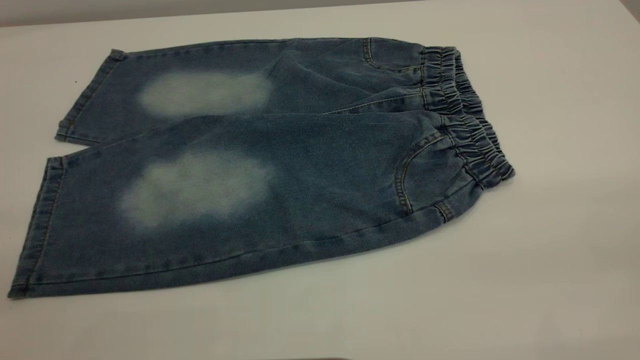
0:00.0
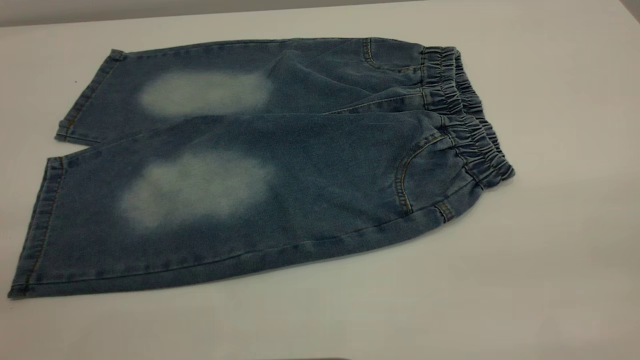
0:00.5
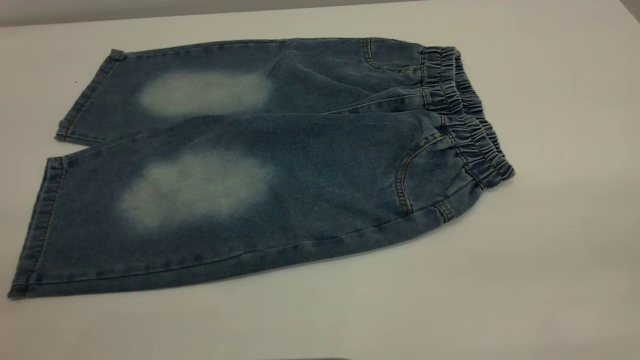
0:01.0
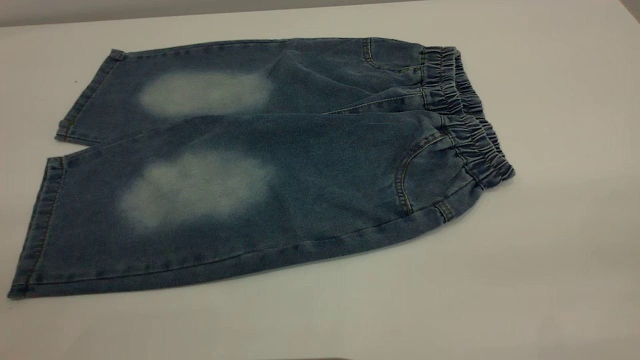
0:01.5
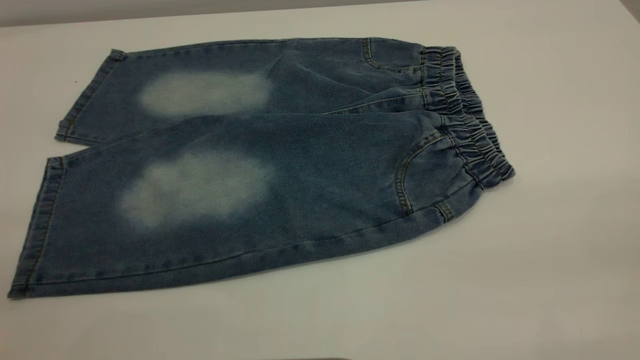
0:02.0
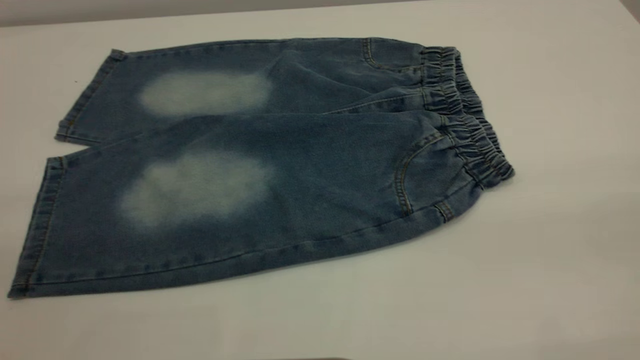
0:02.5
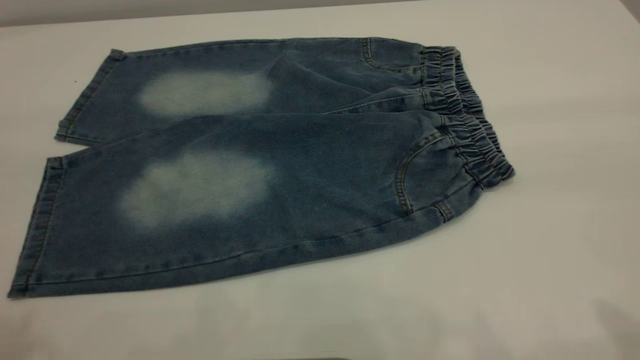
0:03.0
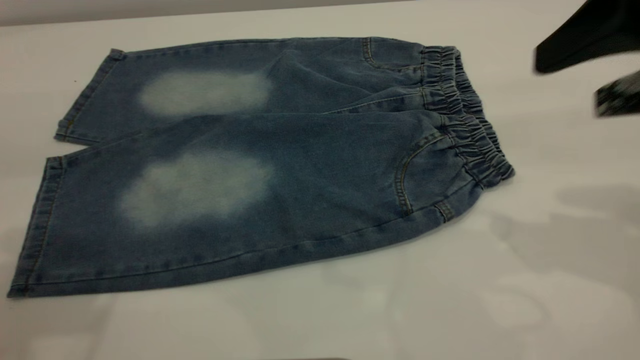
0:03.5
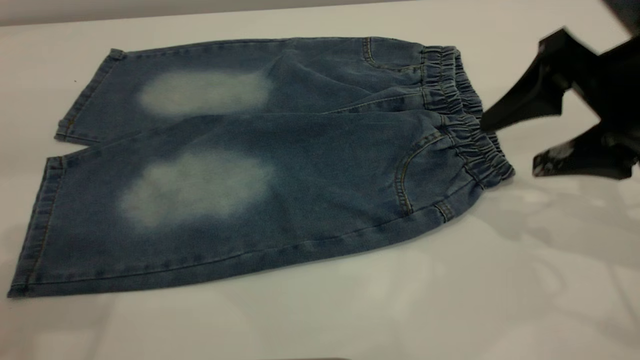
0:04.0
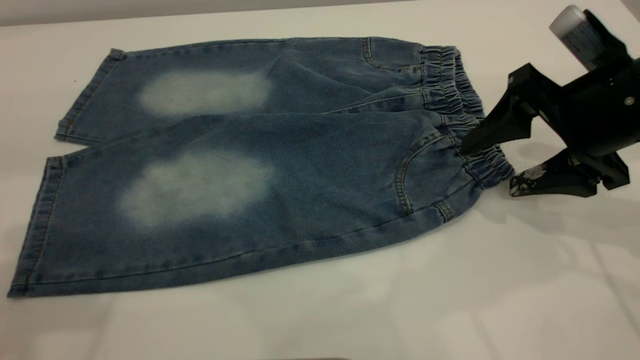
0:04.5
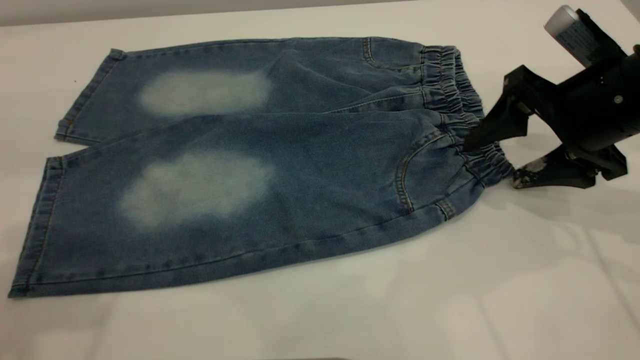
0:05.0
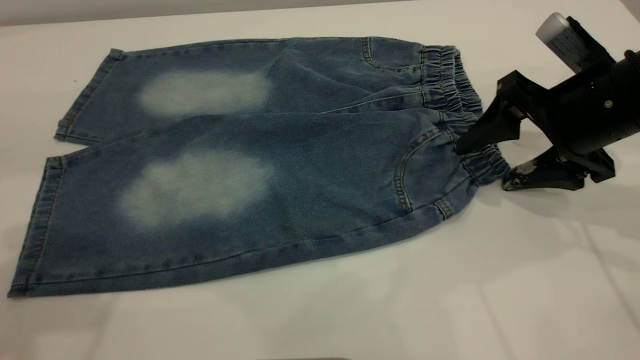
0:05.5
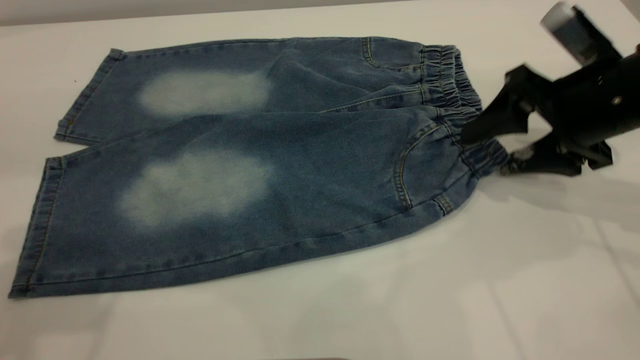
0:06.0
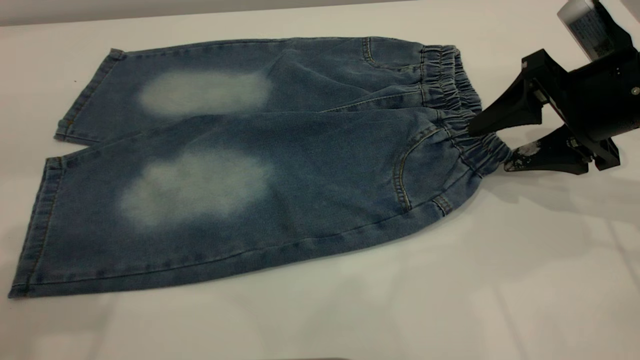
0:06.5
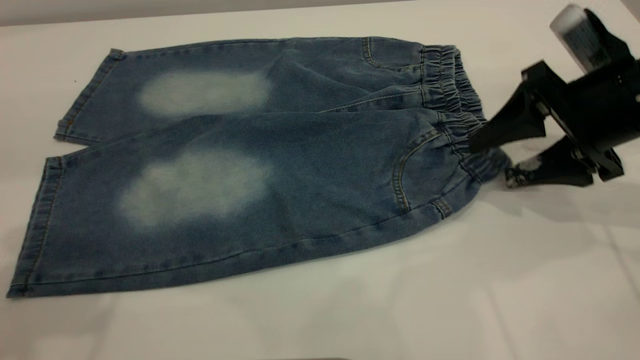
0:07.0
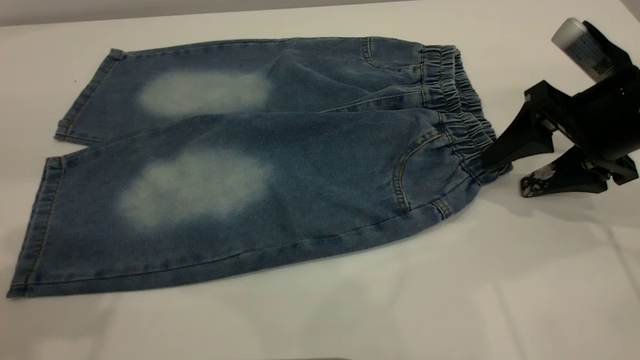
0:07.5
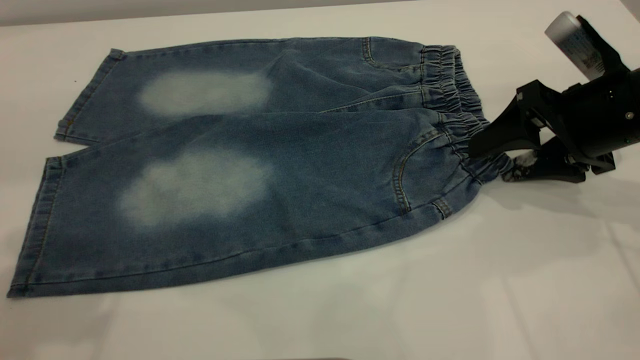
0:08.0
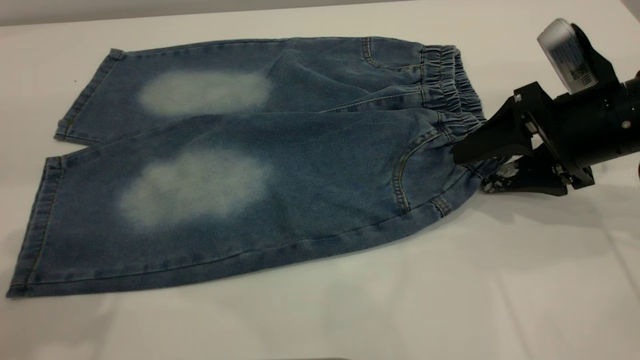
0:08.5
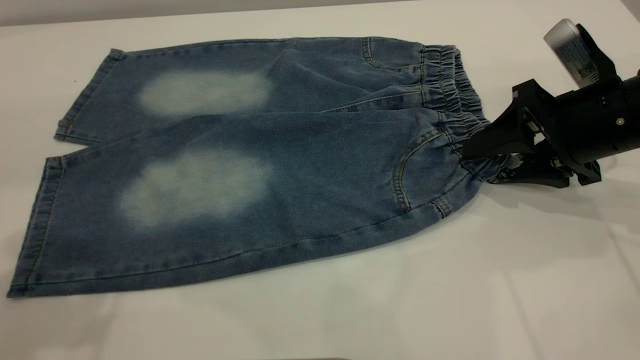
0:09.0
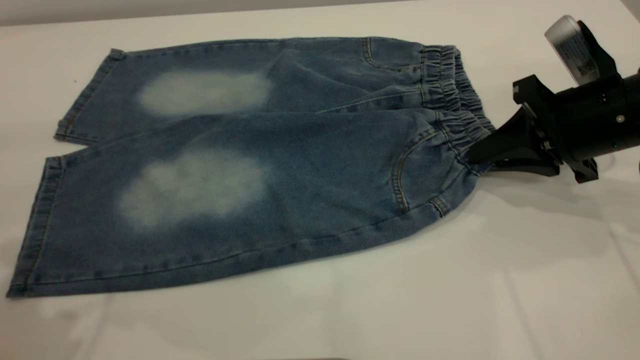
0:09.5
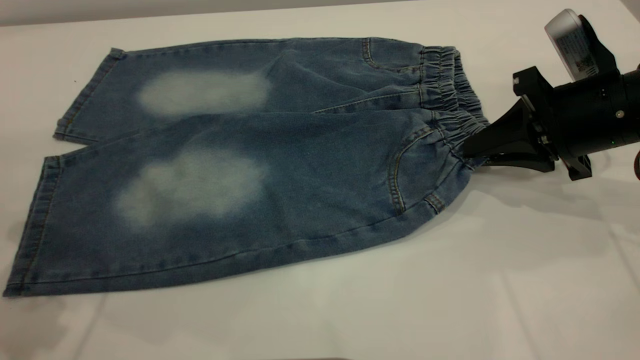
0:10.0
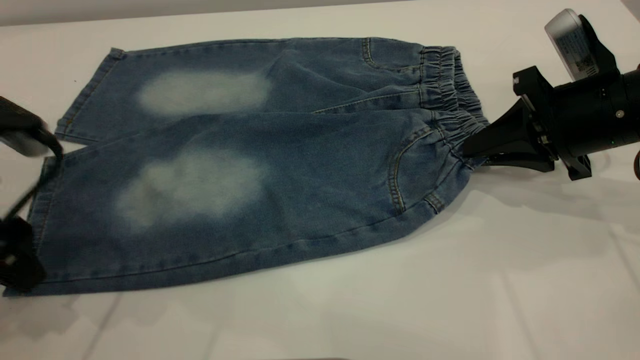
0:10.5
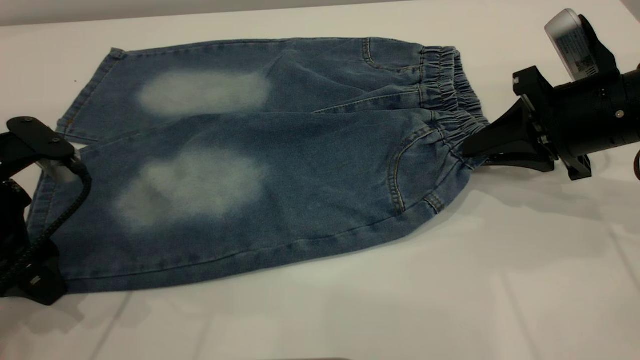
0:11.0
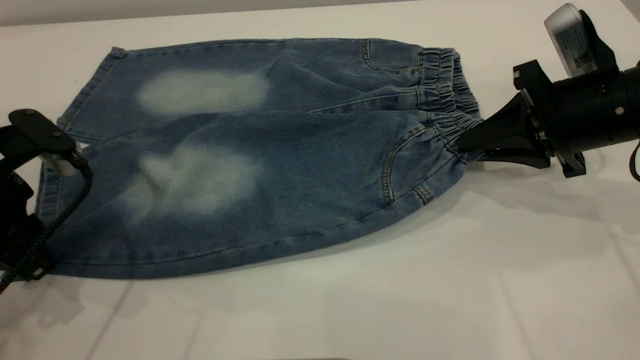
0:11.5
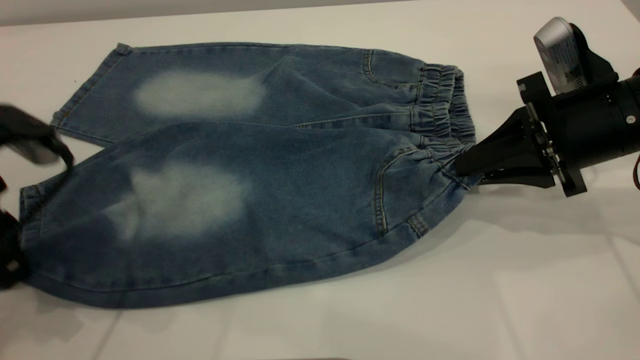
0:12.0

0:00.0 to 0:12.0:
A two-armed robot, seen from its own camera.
0:00.0 to 0:02.0: Both grippers stay about where they are.
0:02.0 to 0:04.0: The right gripper shifts some 30 cm forward and downward.
0:04.0 to 0:06.0: The right gripper goes approximately 5 cm forward.
0:06.0 to 0:08.0: The grippers move only a little.
0:08.0 to 0:10.0: The right gripper closes its fingers. The left gripper goes roughly 10 cm downward.
0:10.0 to 0:12.0: The left gripper moves downward, roughly 5 cm, and closes its fingers.

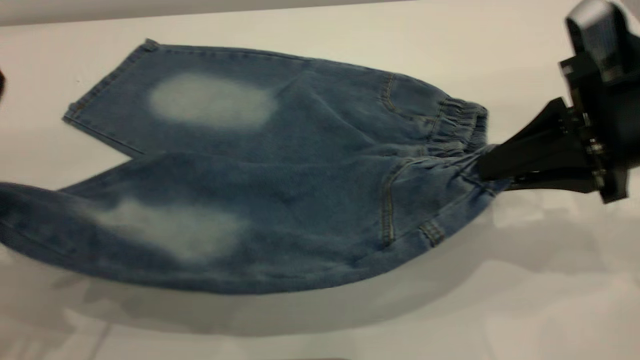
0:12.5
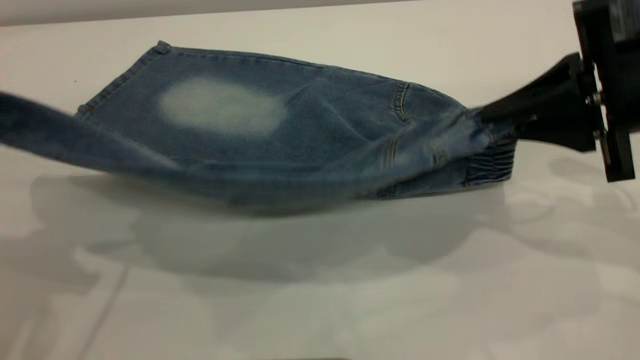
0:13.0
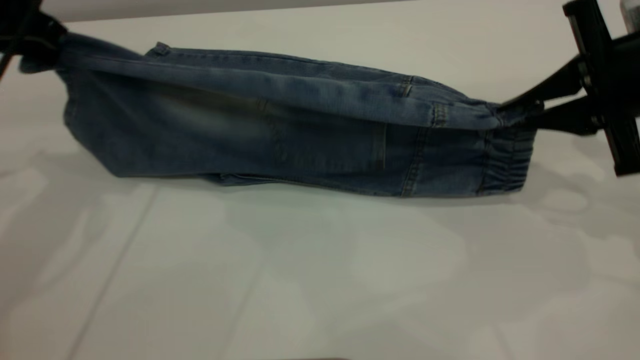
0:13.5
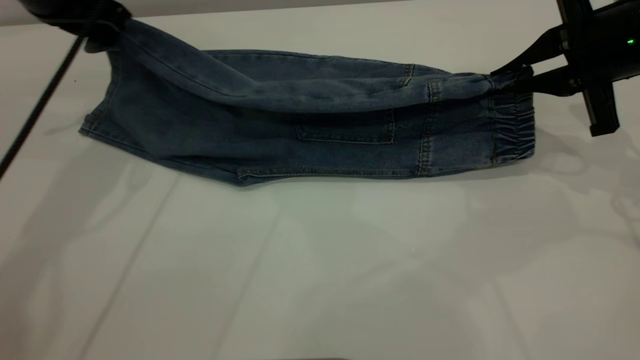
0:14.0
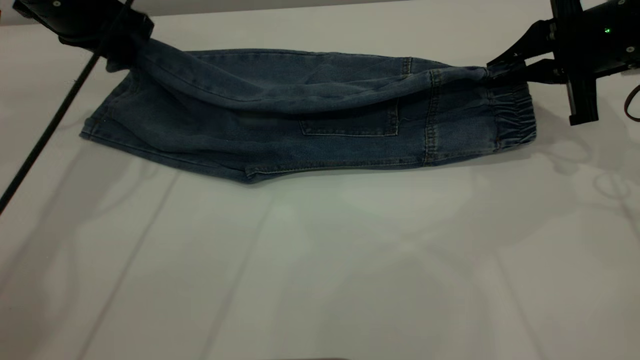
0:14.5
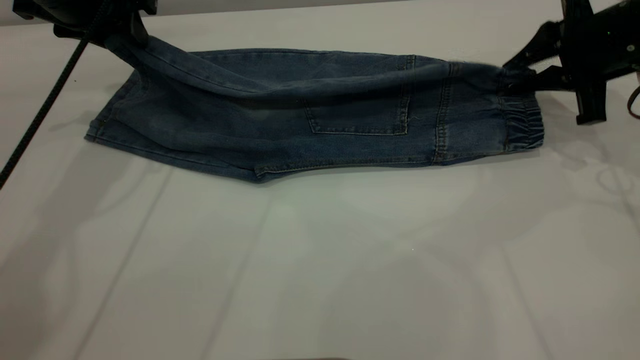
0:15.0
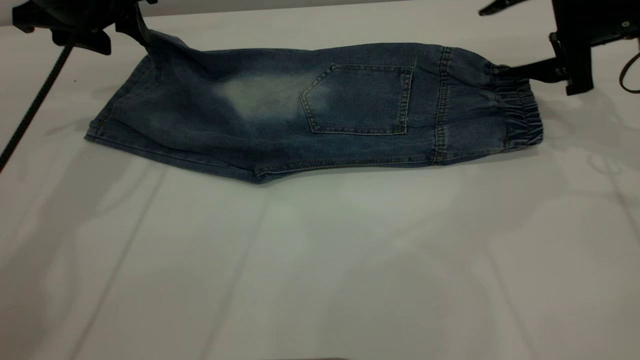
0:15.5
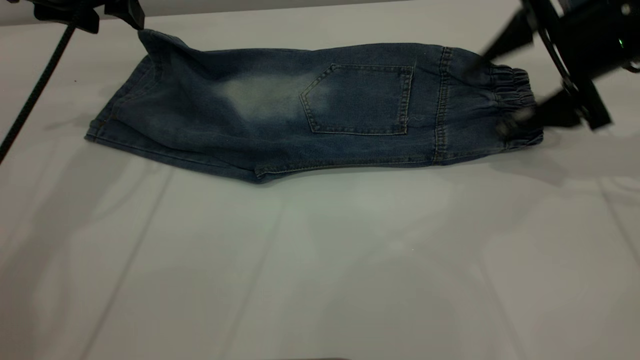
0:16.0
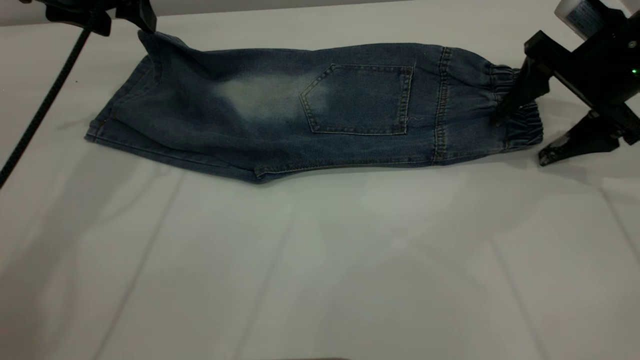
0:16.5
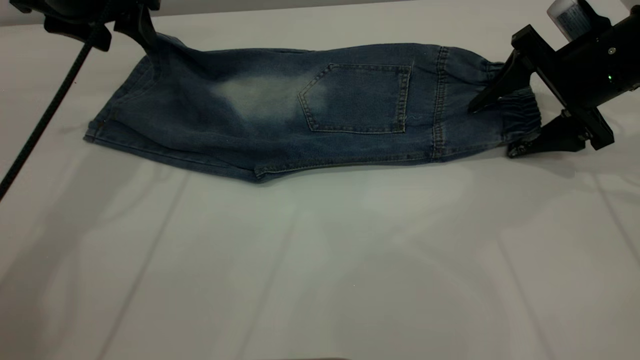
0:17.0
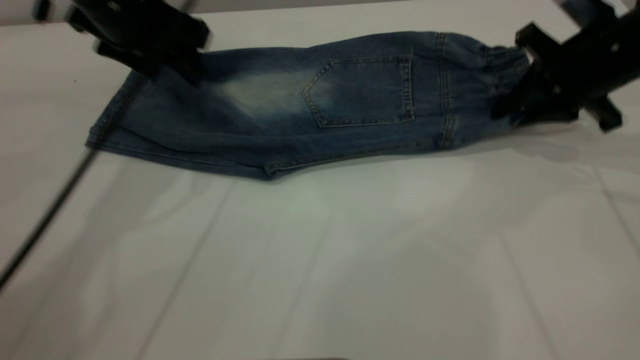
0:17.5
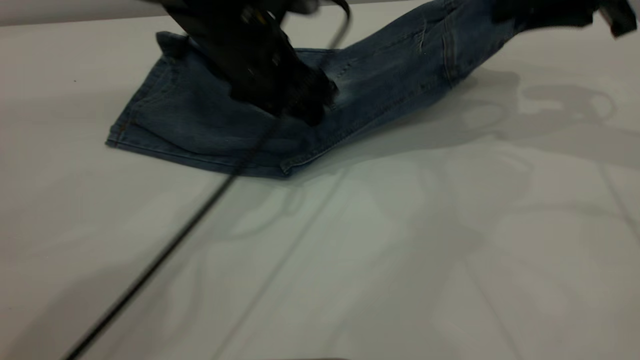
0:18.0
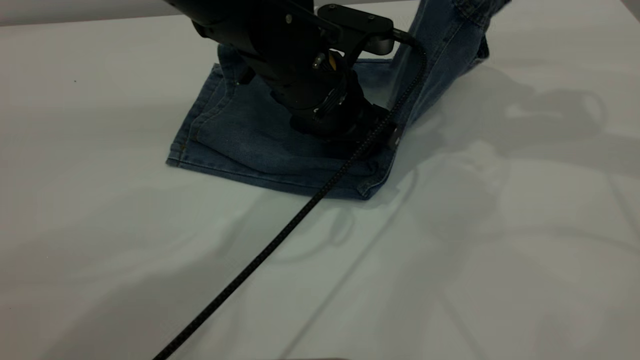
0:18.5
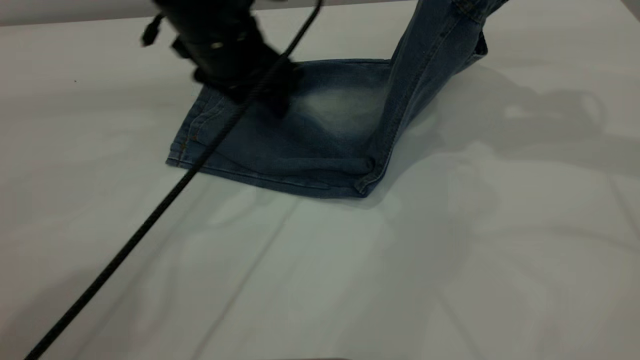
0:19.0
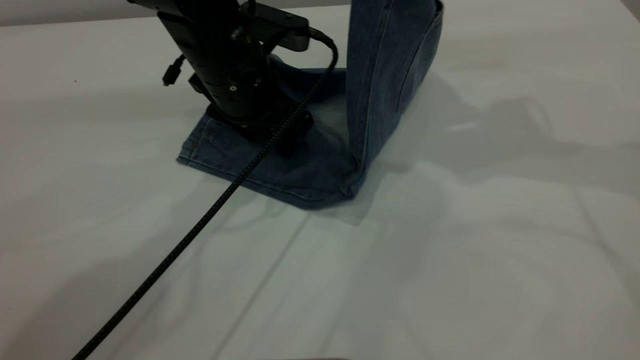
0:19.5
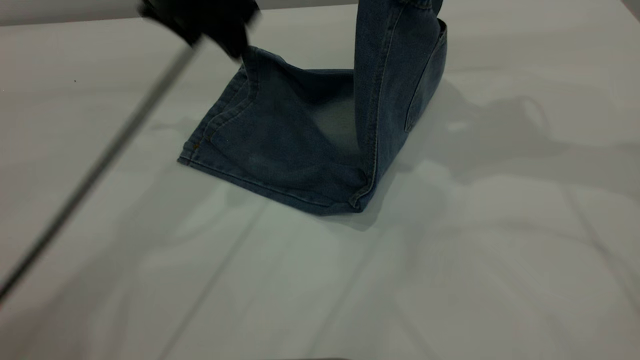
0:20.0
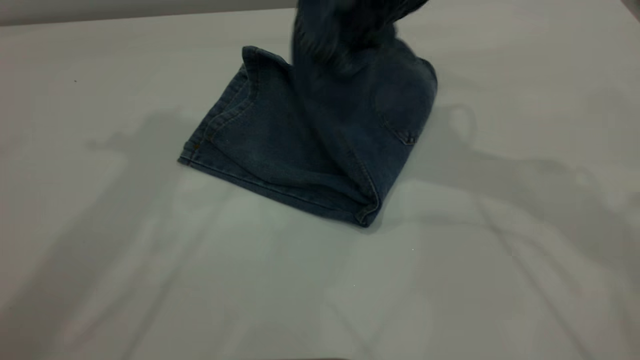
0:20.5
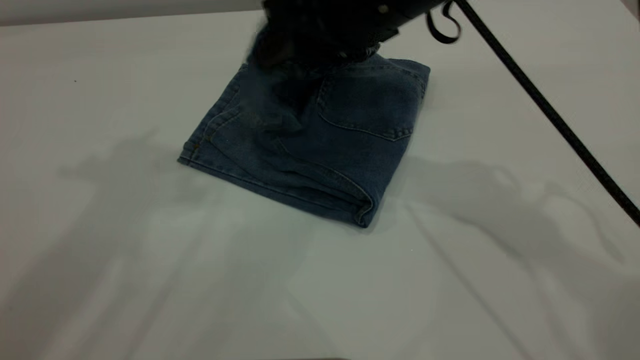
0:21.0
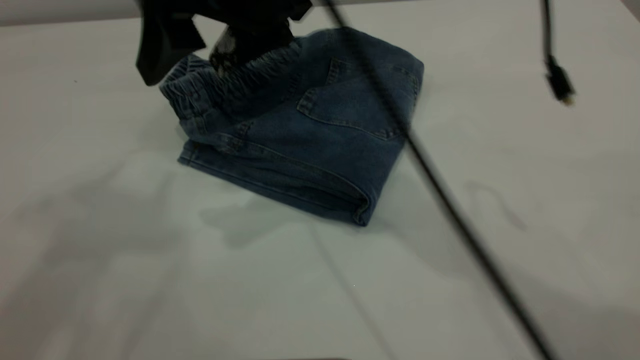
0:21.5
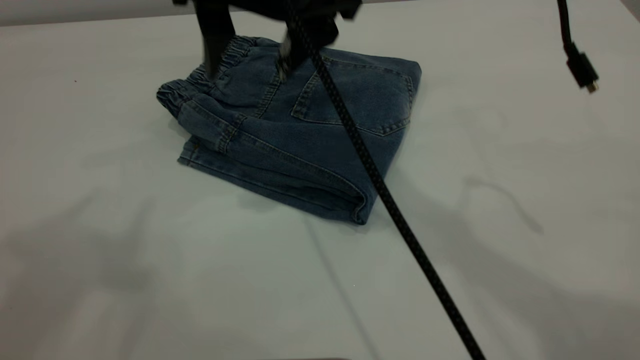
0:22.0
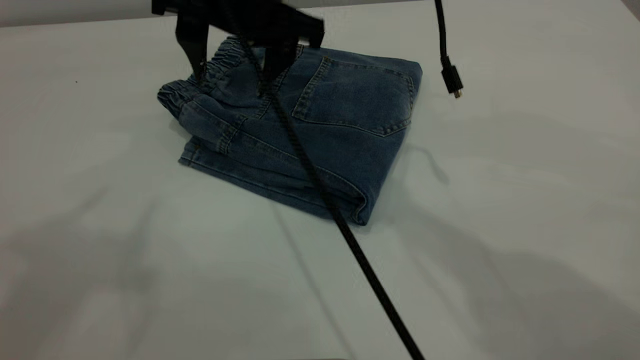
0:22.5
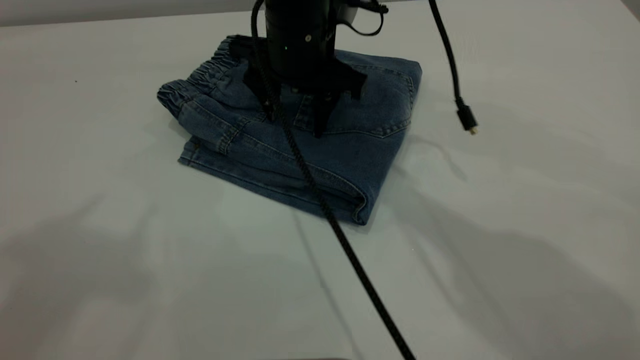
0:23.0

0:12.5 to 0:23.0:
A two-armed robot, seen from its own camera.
Step, 0:12.5 to 0:15.0: Fold the bottom of the pants upward.
Step, 0:15.5 to 0:21.5: Fold your pants from right to left.
0:12.5 to 0:14.5: The right gripper is displaced forward by approximately 10 cm; the left gripper goes about 20 cm forward.
0:14.5 to 0:16.5: The left gripper opens; the right gripper opens.
0:16.5 to 0:19.0: The left gripper travels to the right and downward by roughly 15 cm. The right gripper goes roughly 15 cm upward, and closes up.
0:19.0 to 0:21.0: The right gripper moves to the left, some 20 cm, and opens up, while the left gripper shifts about 30 cm upward.
0:21.0 to 0:23.0: The right gripper moves to the left, downward and forward, about 10 cm; the left gripper is displaced backward and upward by roughly 10 cm.
